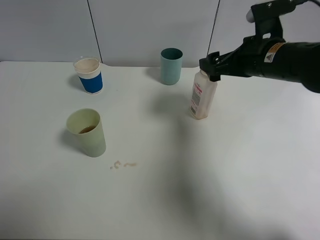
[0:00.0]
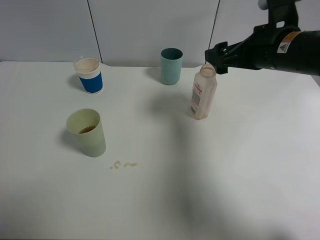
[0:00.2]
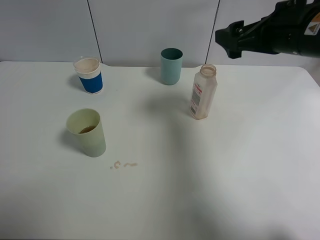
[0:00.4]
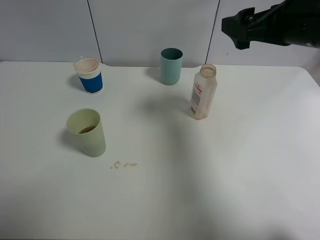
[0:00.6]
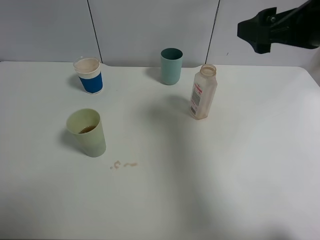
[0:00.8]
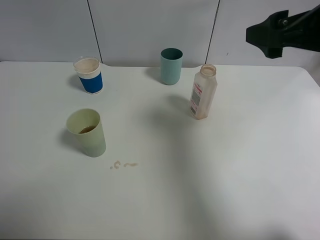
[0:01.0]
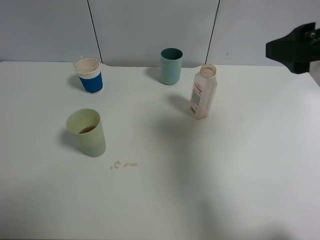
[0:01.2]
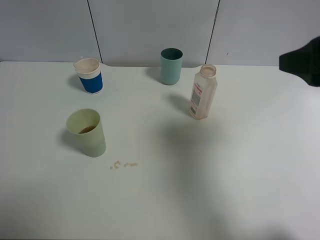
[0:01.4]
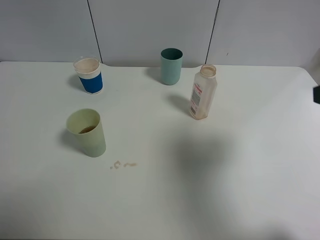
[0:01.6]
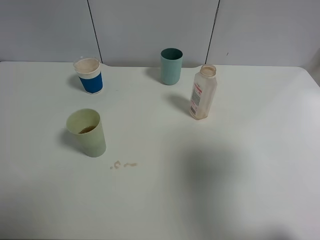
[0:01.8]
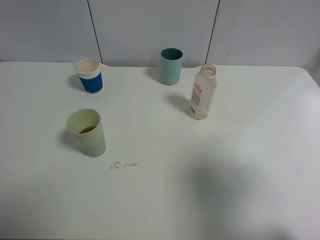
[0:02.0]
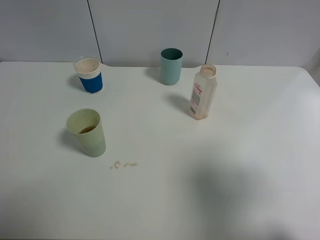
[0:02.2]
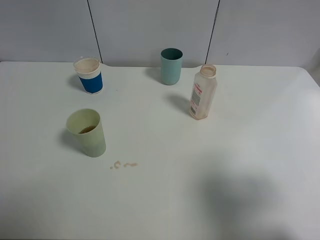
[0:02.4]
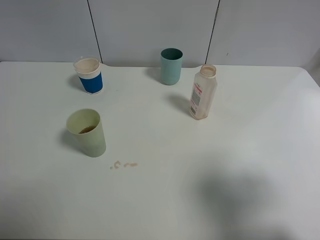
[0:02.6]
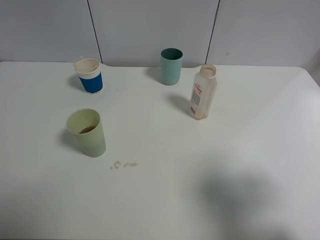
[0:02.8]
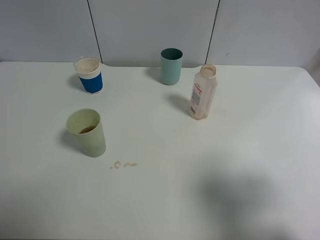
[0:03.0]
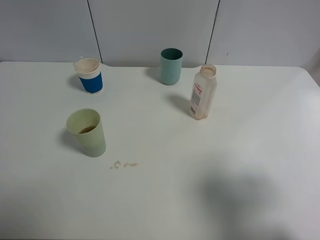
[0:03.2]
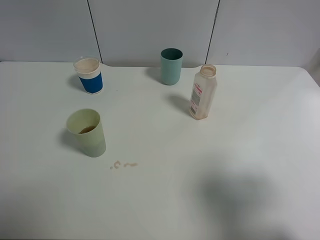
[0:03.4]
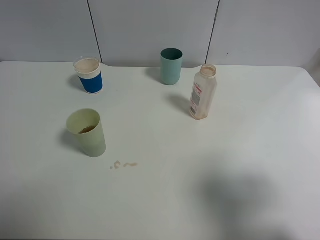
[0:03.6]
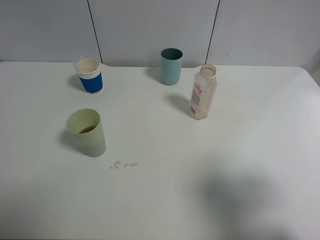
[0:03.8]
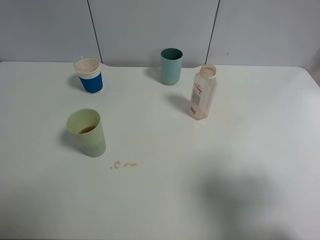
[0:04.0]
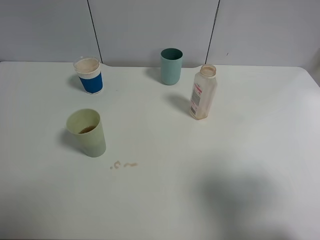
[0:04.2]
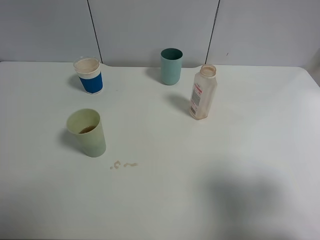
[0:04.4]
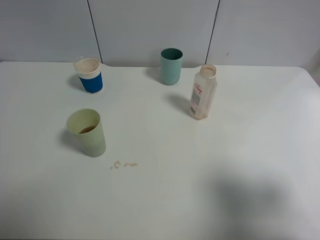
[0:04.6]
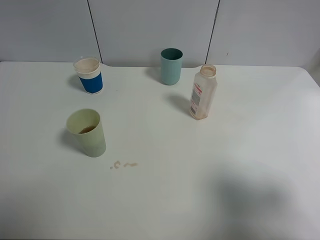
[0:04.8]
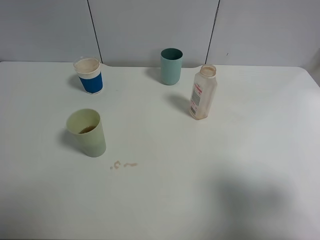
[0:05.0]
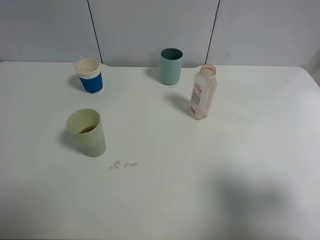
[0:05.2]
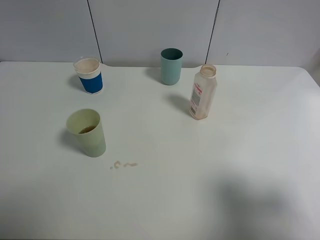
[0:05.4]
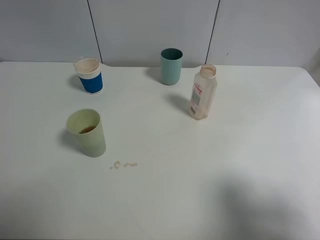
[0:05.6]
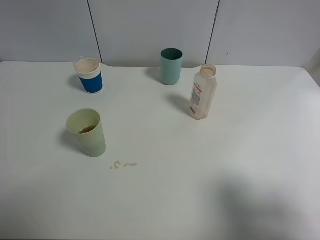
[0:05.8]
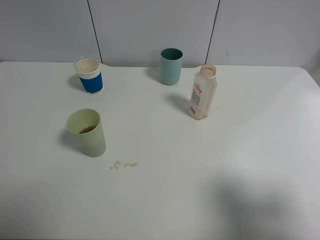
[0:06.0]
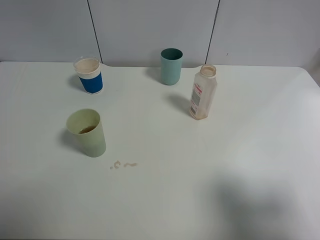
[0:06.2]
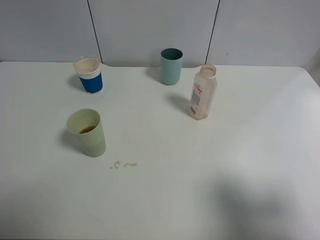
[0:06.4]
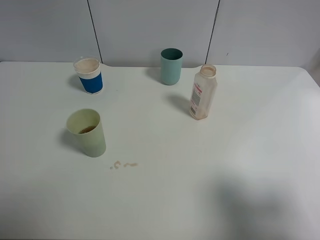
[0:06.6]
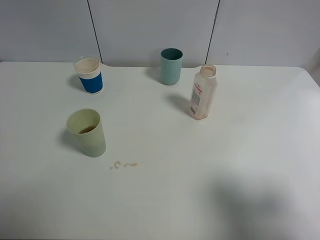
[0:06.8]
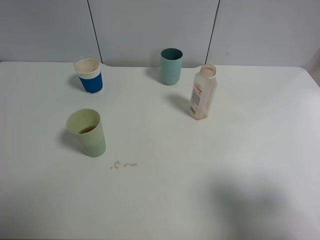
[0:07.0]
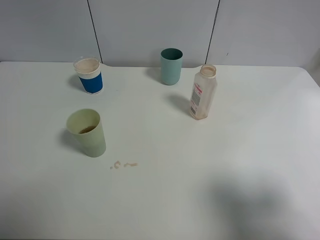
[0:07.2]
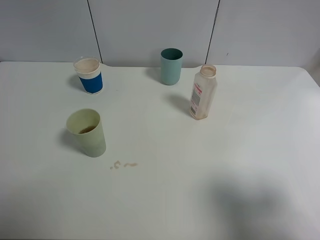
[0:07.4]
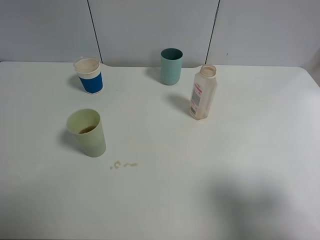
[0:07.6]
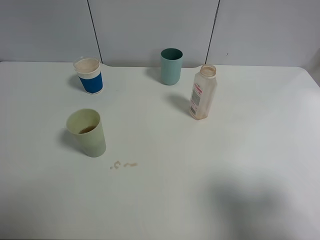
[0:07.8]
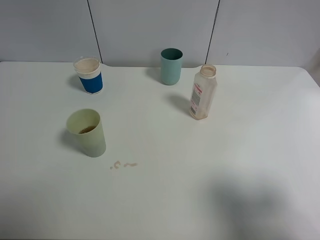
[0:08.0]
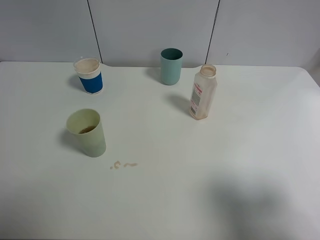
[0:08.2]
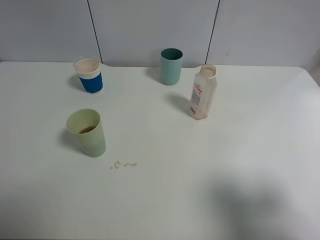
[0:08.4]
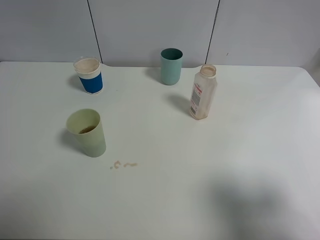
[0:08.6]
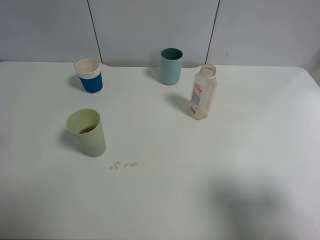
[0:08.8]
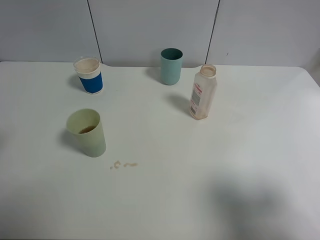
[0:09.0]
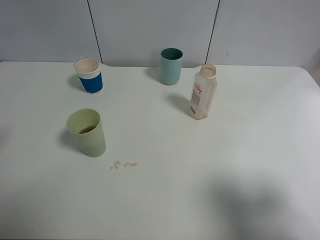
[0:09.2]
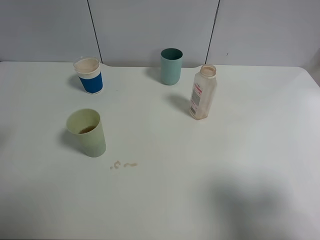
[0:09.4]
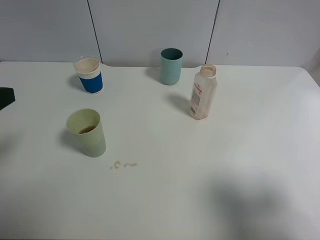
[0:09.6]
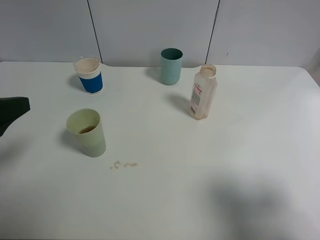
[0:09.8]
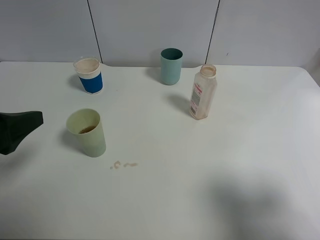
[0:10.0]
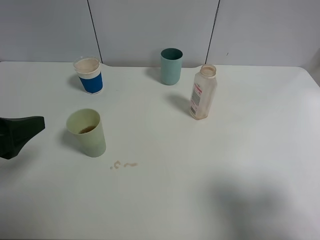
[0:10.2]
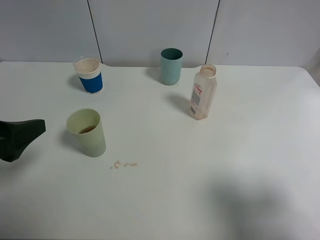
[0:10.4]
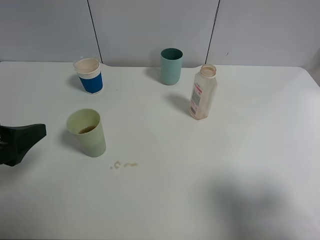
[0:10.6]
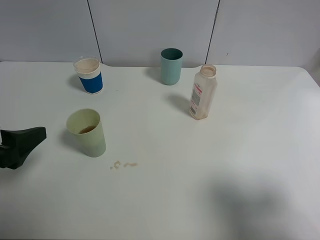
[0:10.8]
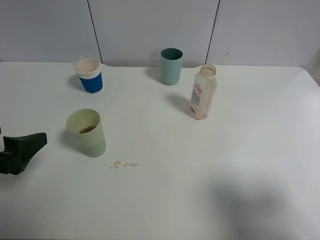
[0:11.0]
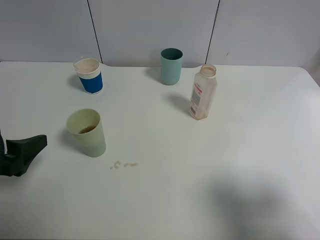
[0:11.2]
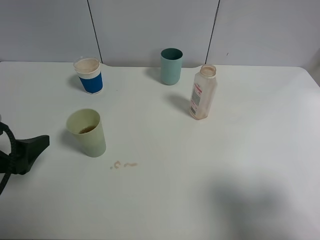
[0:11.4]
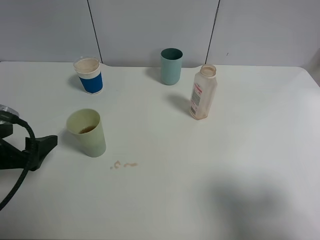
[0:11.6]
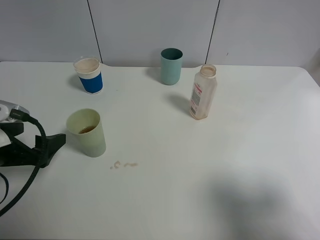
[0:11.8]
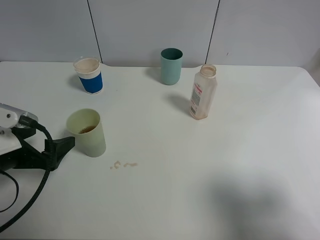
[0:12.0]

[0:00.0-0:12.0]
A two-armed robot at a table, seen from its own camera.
Task of the whole recording: use a clamp to hold the bottle of the drink, pour the beverage into a random cup, then clamp the cup containing the drink and pour the drink into another random cup.
0:00.0 to 0:01.6: The right gripper goes approximately 25 cm backward, upward and to the right.
0:01.6 to 0:03.0: The right gripper is displaced backward by about 5 cm.
0:09.0 to 0:10.4: The left gripper moves downward, about 10 cm.
0:10.4 to 0:12.0: The left gripper shifts some 5 cm downward.

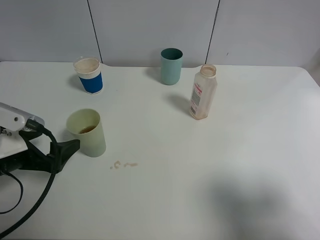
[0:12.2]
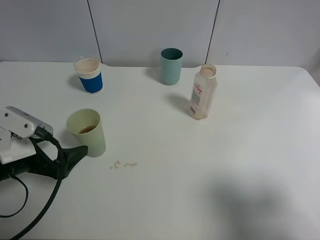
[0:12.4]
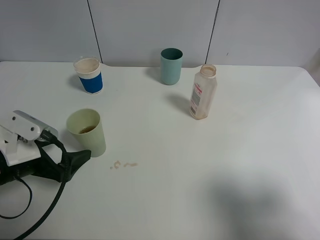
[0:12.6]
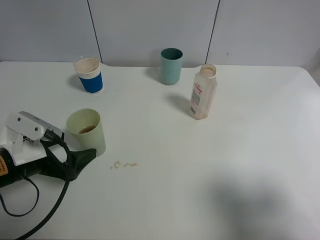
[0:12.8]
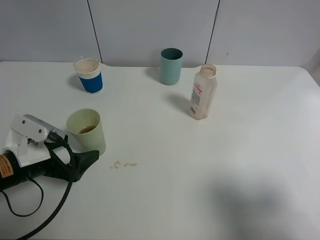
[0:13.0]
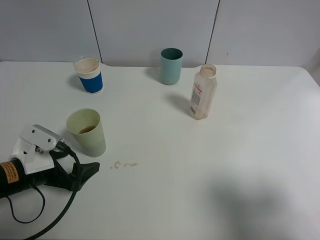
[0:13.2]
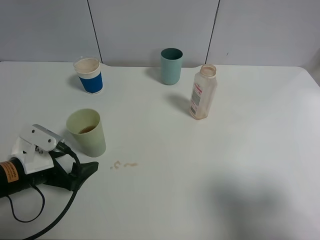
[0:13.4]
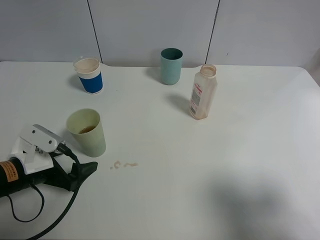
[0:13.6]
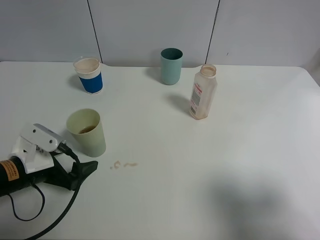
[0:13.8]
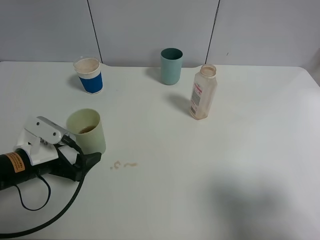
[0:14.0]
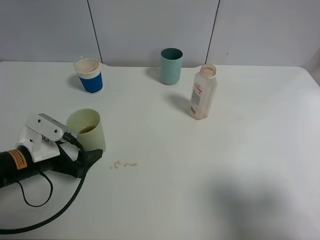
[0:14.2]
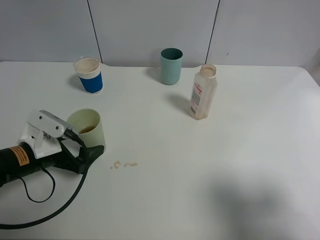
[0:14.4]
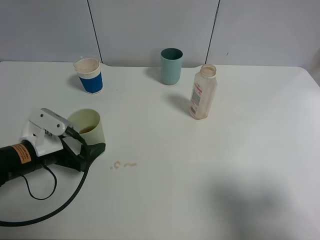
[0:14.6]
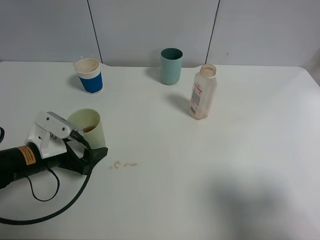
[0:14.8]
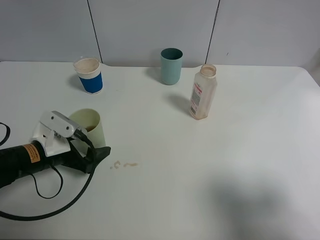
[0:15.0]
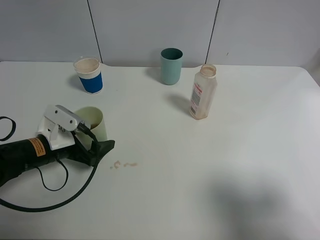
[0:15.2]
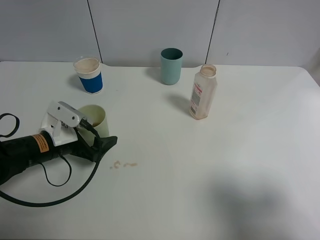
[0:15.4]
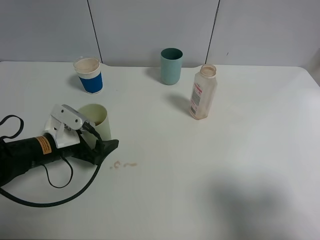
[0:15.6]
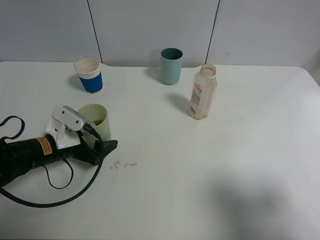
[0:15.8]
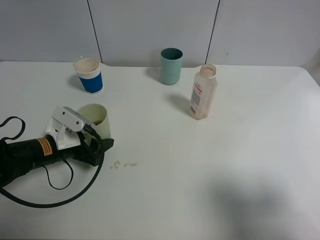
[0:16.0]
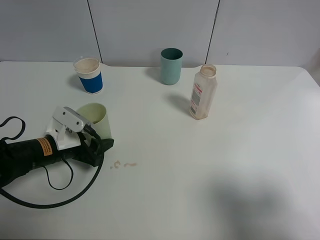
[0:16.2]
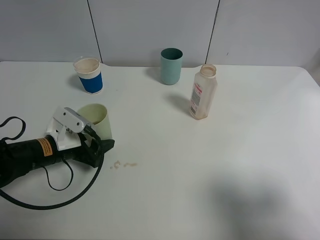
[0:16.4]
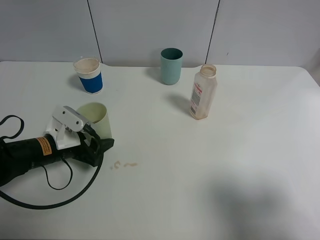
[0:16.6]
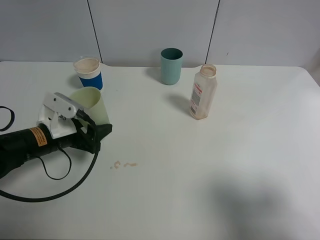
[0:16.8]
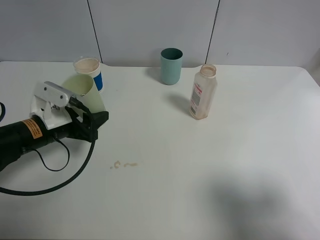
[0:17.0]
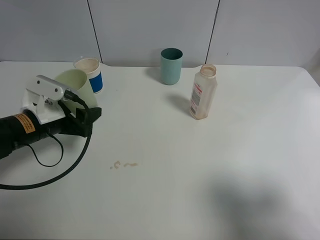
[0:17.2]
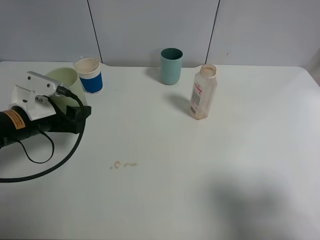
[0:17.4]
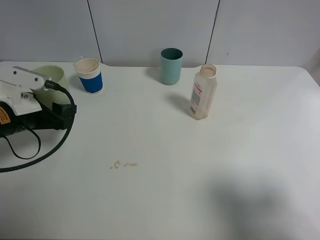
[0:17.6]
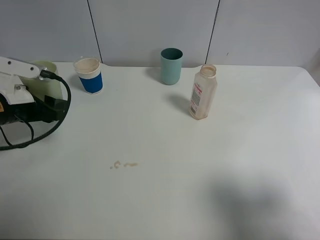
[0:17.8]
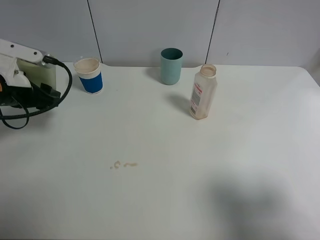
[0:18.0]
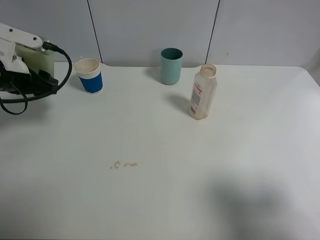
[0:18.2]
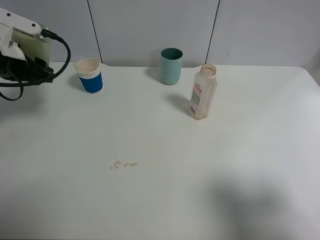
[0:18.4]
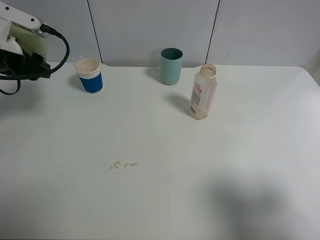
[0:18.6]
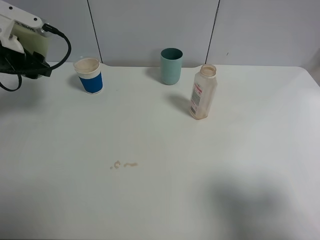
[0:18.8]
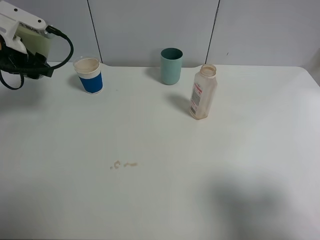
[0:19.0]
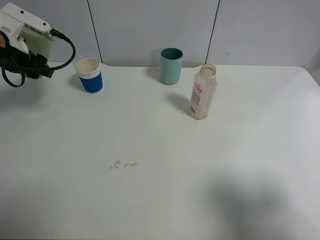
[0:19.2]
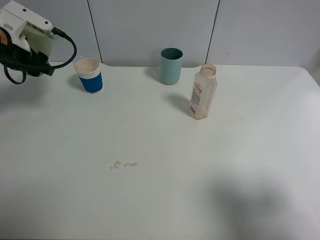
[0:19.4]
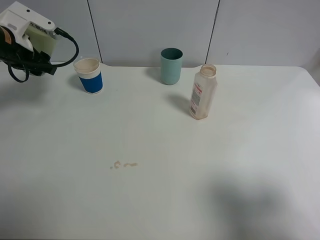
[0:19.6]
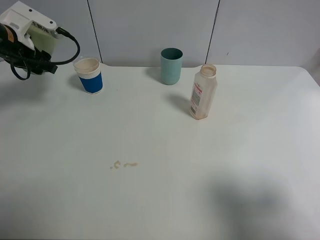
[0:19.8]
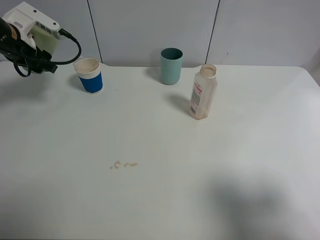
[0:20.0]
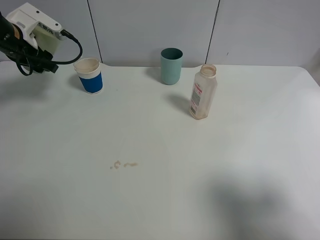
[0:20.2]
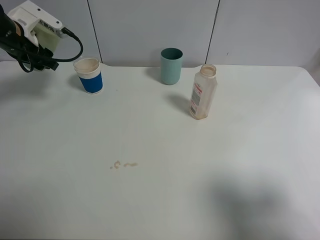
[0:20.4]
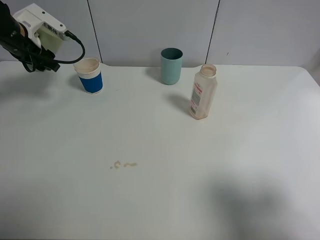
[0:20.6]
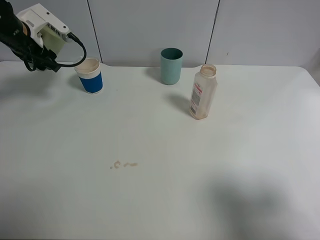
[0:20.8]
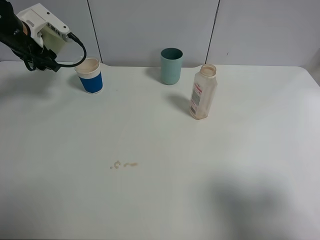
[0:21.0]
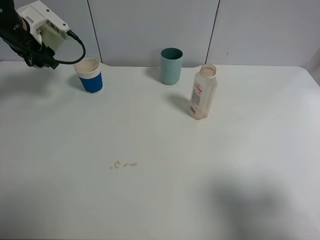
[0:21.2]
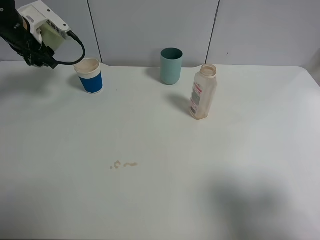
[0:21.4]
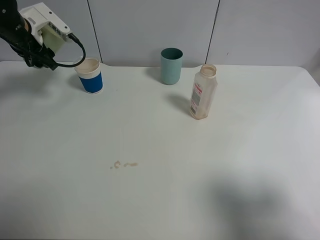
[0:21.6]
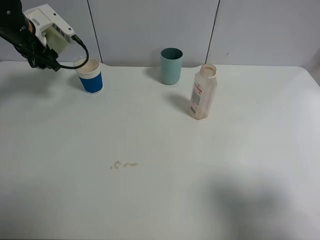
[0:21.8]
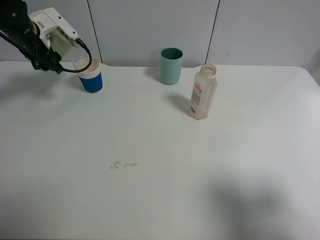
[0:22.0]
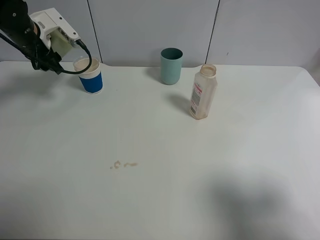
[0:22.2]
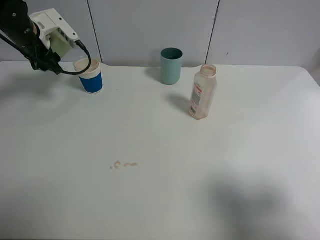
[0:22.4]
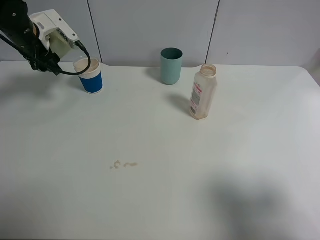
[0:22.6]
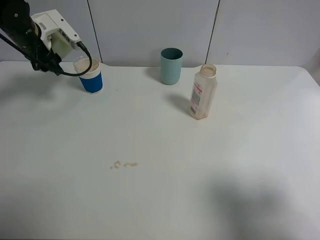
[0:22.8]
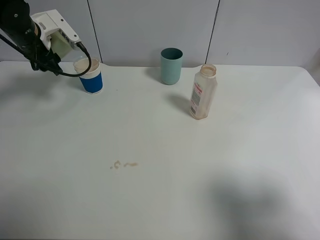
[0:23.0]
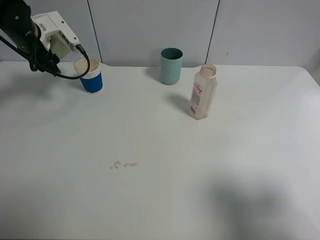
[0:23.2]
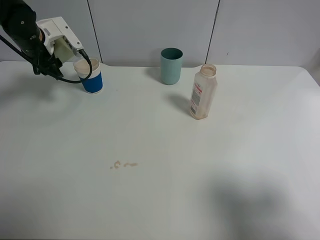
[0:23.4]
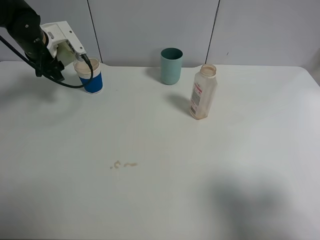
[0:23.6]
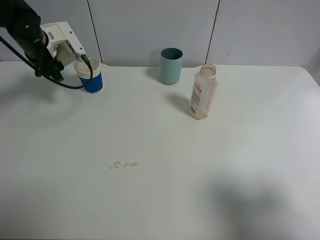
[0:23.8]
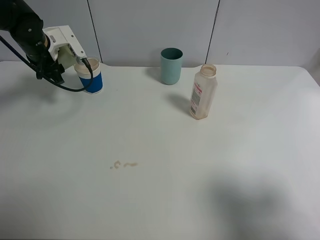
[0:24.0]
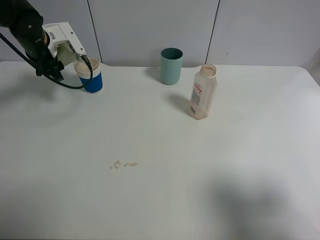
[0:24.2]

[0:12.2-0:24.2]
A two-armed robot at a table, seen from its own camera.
Task of the whole recording: use a clamp to hold the bottle of the drink, pour the beverage into a random cup, then clamp the cup containing the drink and pour the drink into another random cup.
Step, 0:12.2 to 0:16.6: Pick up the green plastic cup bottle with left gripper.
0:12.2 to 0:13.8: The left gripper moves downward, roughly 5 cm.
0:13.8 to 0:15.2: The left gripper shifts some 5 cm forward.
0:15.2 to 0:16.6: The left gripper closes.
0:16.6 to 0:18.2: The left gripper shifts roughly 15 cm upward, to the left and forward.
0:18.2 to 0:19.8: The left gripper travels forward by some 10 cm.
0:19.8 to 0:21.2: The grippers make only small movements.
0:21.2 to 0:24.2: The grippers stay close to where they were, moving slightly.
